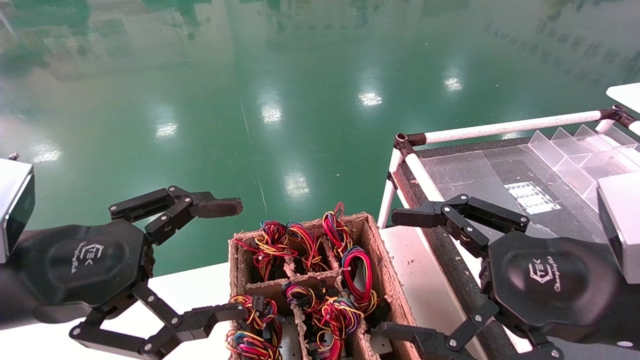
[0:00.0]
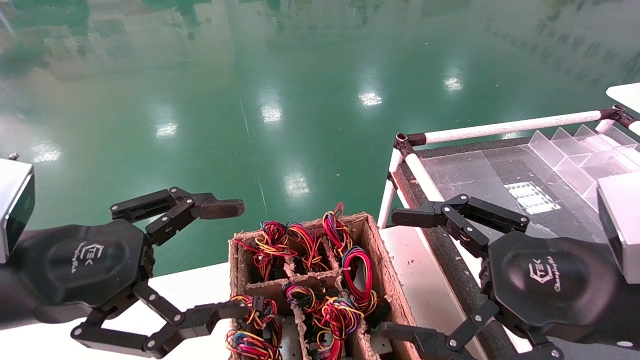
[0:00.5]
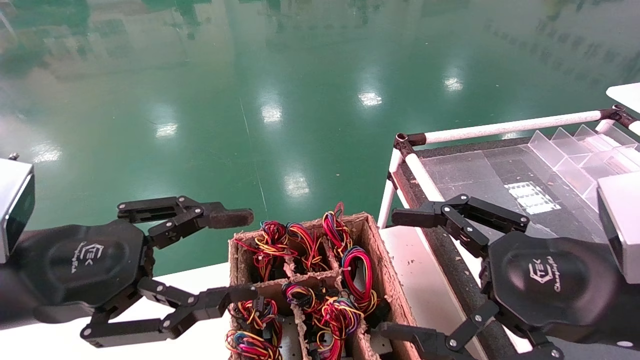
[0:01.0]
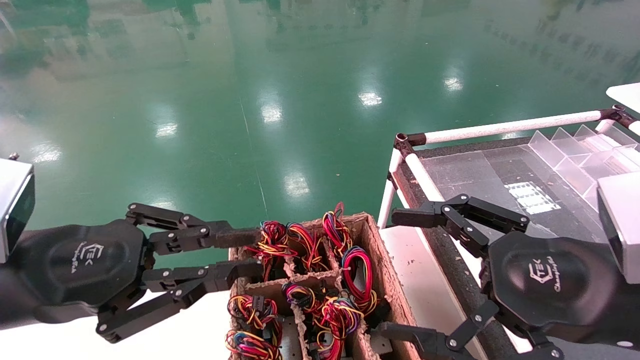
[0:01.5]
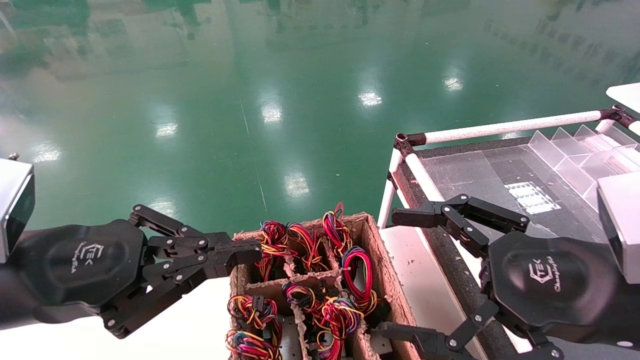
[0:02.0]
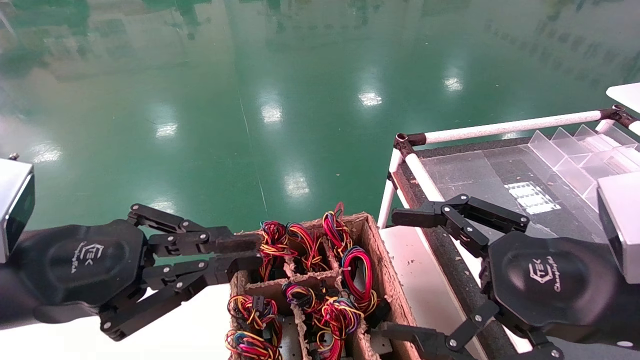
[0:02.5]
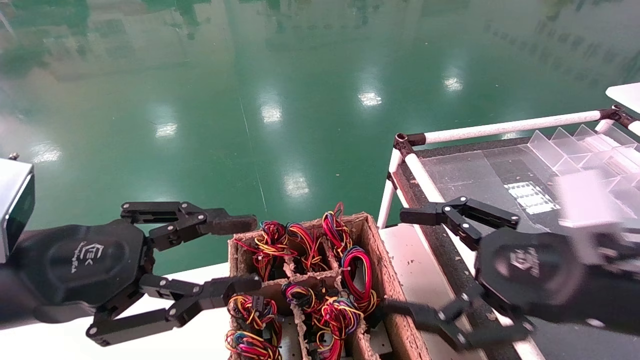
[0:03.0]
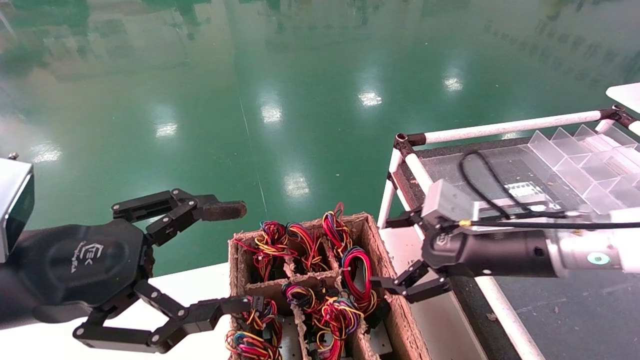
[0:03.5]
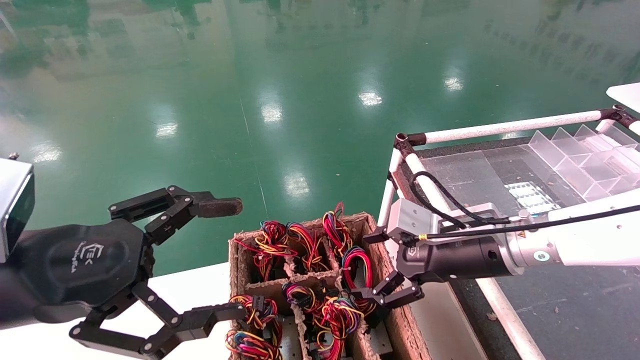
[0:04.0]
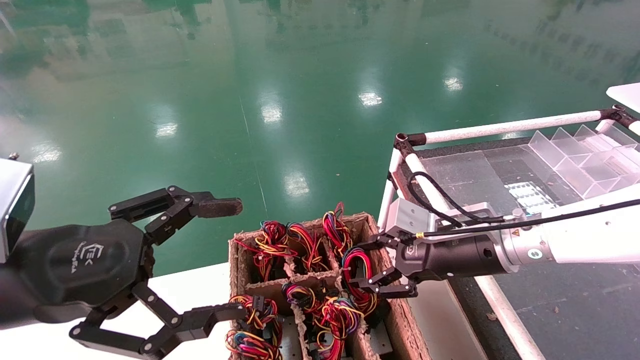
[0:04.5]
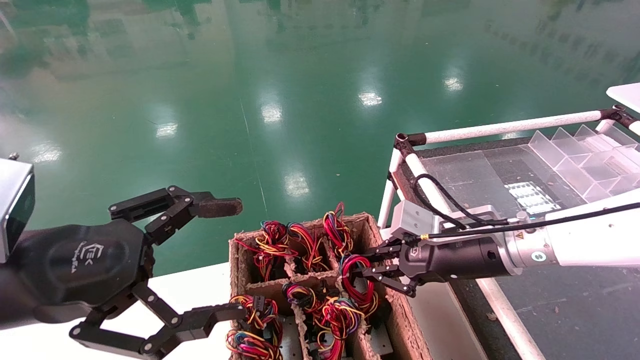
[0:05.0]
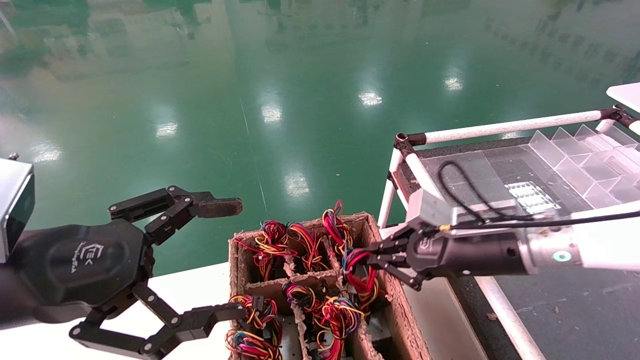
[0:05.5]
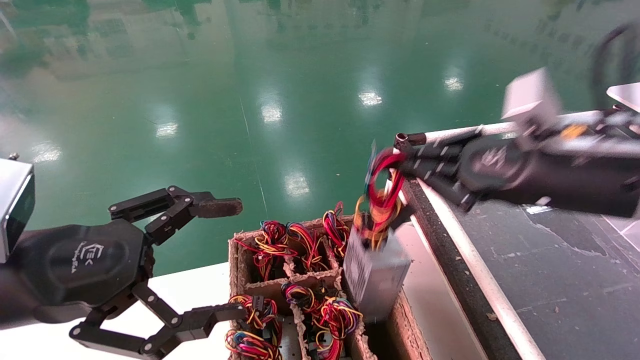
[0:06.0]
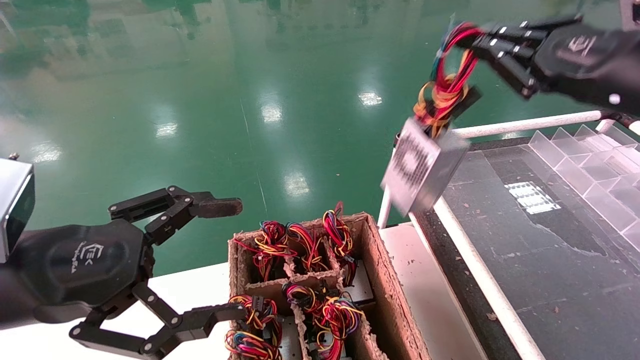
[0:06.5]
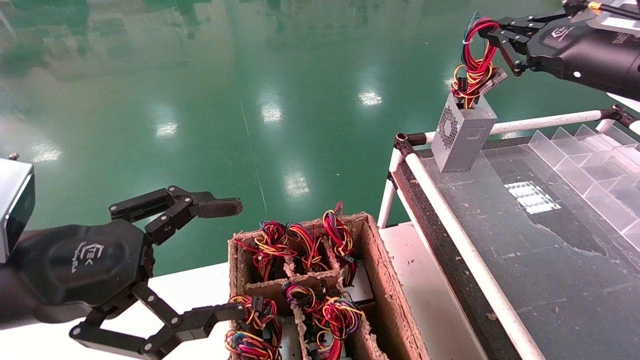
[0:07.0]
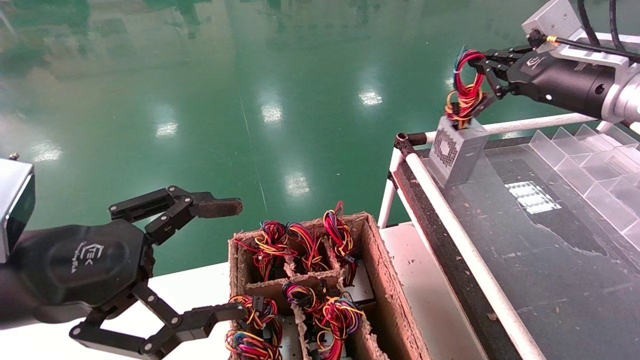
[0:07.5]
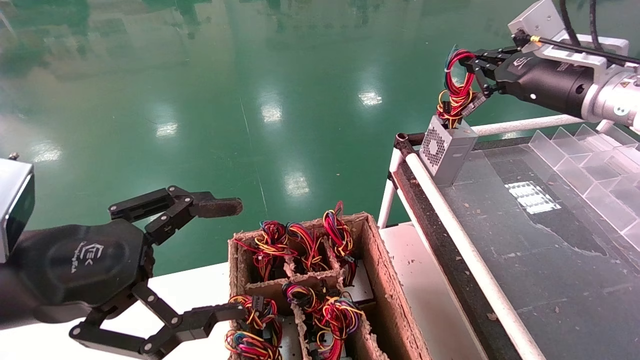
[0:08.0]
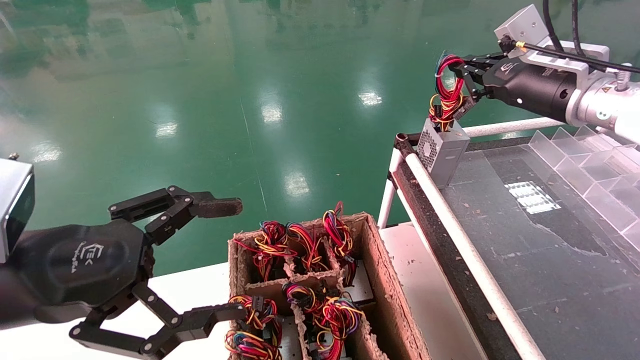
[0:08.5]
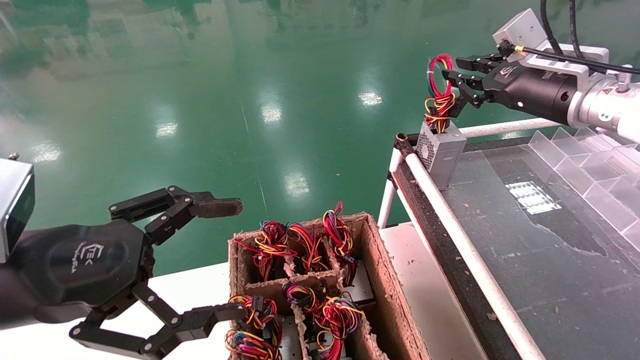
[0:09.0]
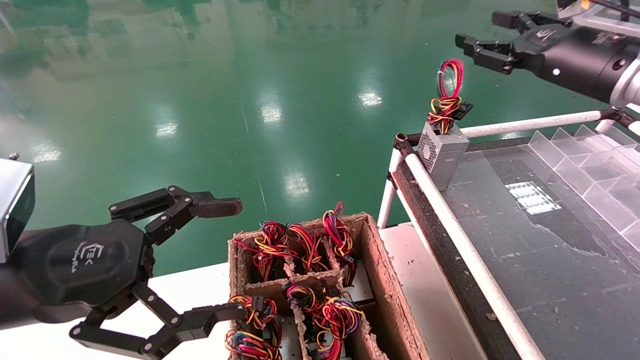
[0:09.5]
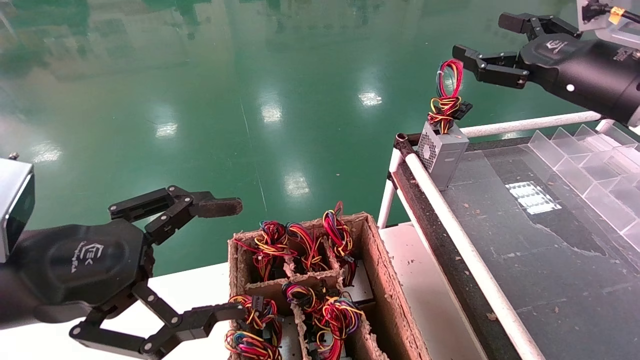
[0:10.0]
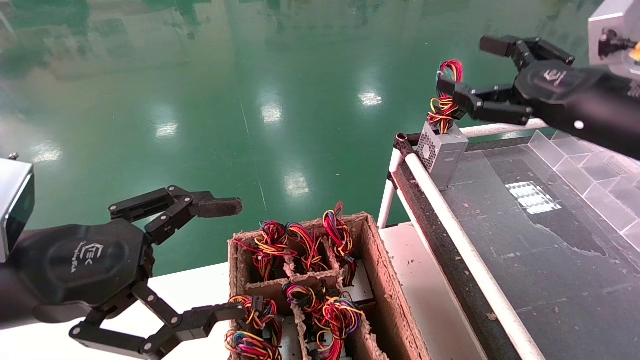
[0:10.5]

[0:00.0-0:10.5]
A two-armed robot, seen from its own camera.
Step, 0:01.0 to 0:05.0: Grab and lift the power supply from the large box.
Step, 0:05.5 to 0:09.5: Place the power supply on the operating table.
0:00.0 to 0:02.0: The left gripper closes its fingers.
0:02.0 to 0:04.0: The left gripper opens its fingers, while the right gripper goes about 15 cm forward.
0:04.0 to 0:06.5: The right gripper shifts roughly 20 cm upward and to the right, and closes.
0:06.5 to 0:08.5: The right gripper shifts approximately 10 cm forward.
0:08.5 to 0:10.5: The right gripper heads backward, covering about 10 cm, and opens.

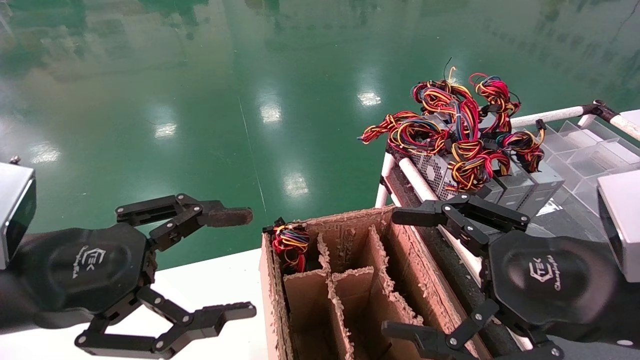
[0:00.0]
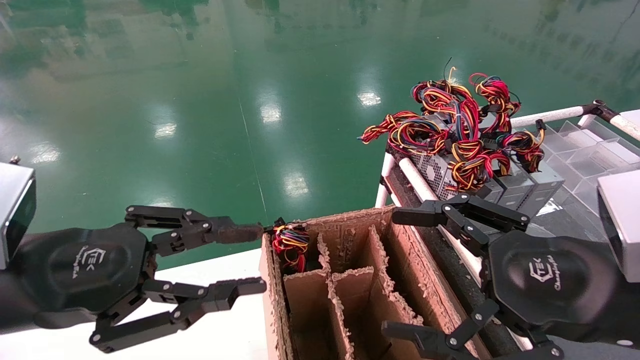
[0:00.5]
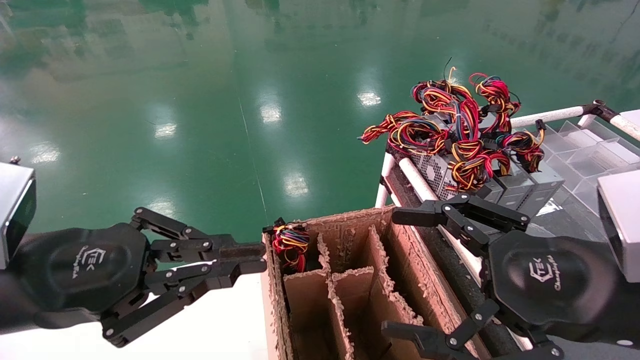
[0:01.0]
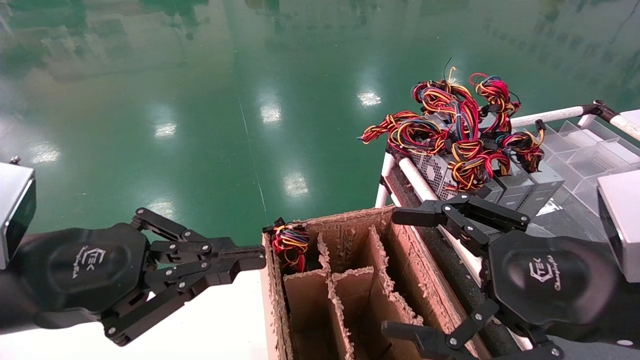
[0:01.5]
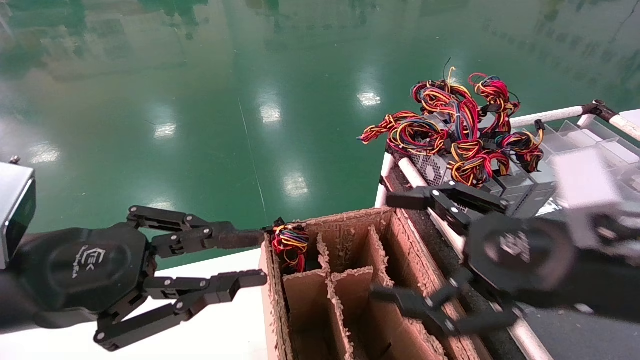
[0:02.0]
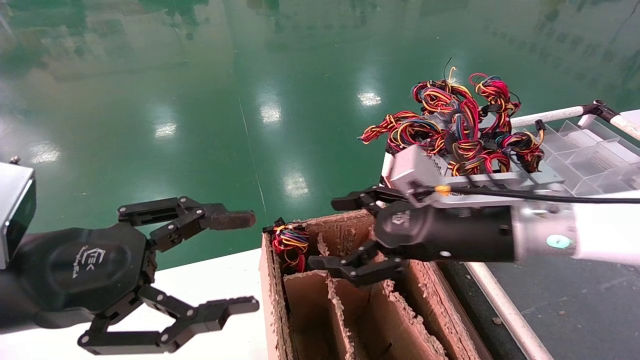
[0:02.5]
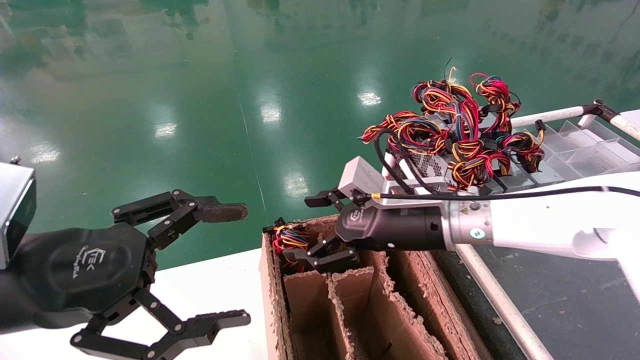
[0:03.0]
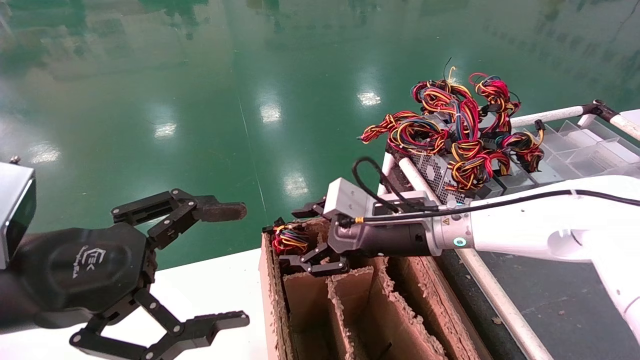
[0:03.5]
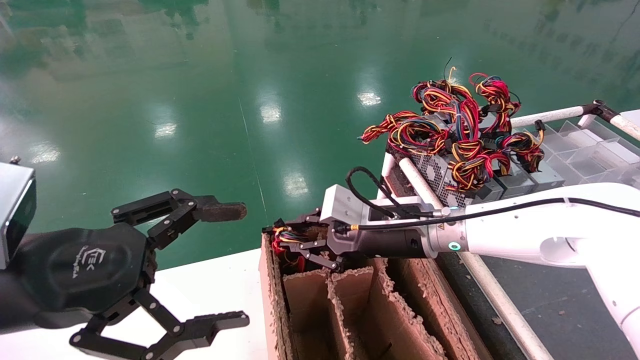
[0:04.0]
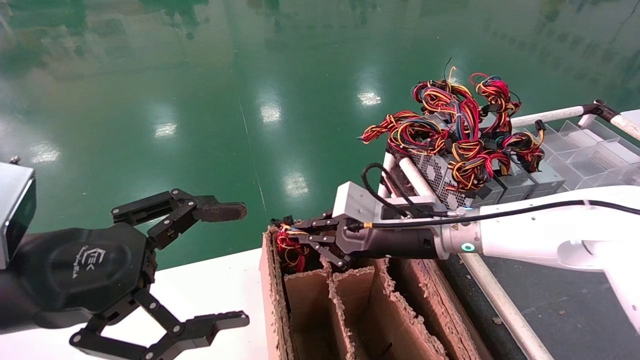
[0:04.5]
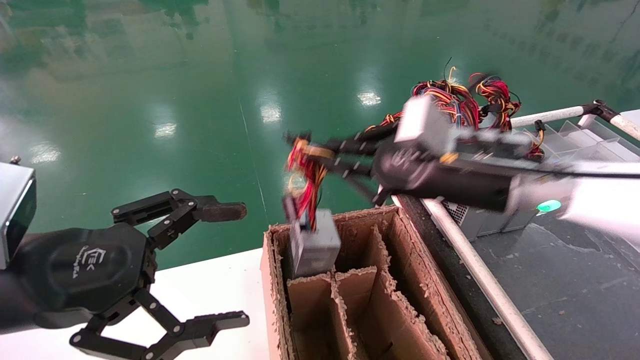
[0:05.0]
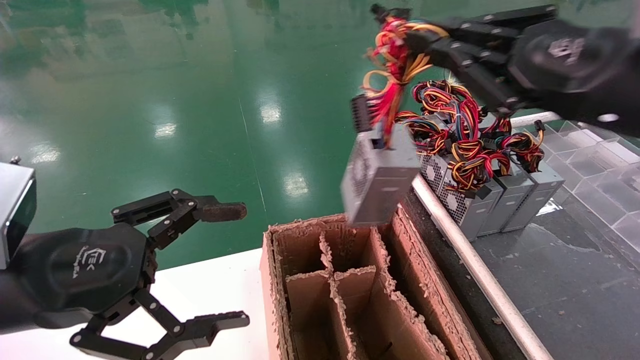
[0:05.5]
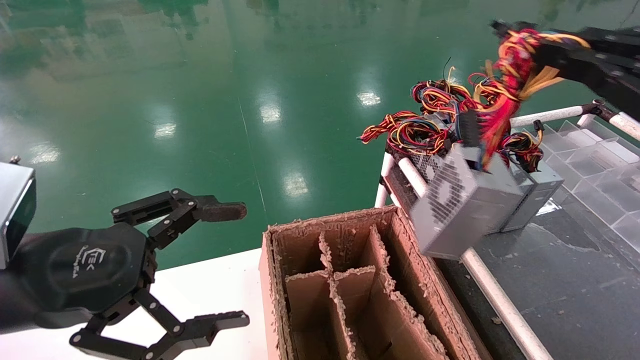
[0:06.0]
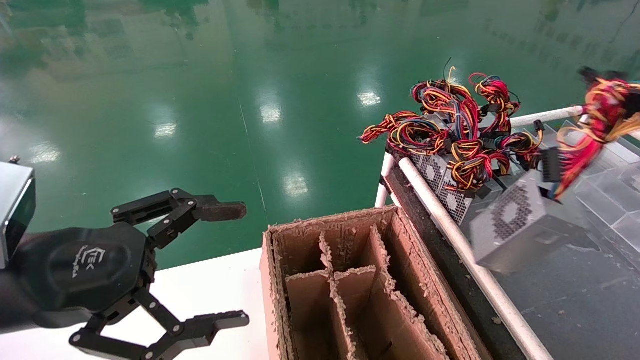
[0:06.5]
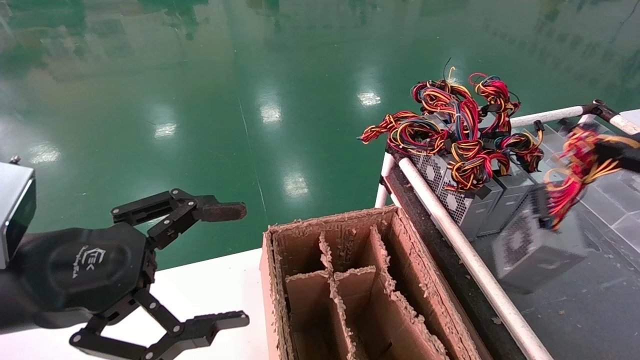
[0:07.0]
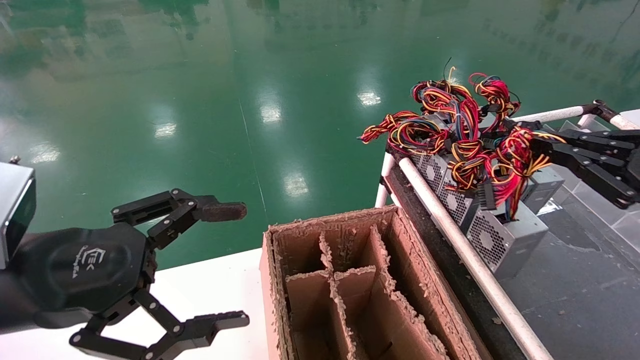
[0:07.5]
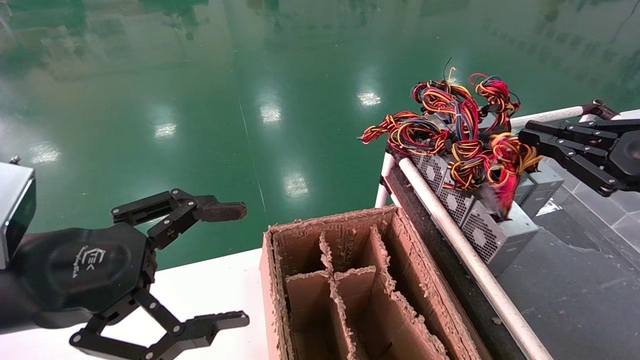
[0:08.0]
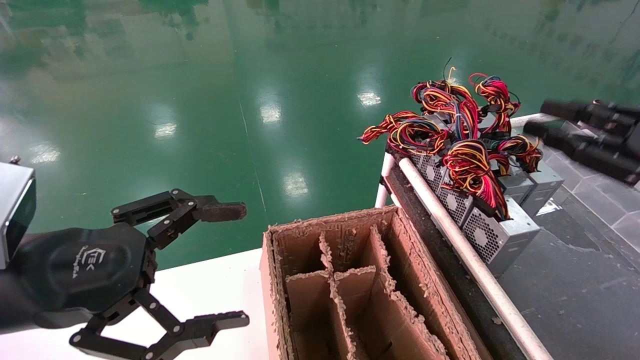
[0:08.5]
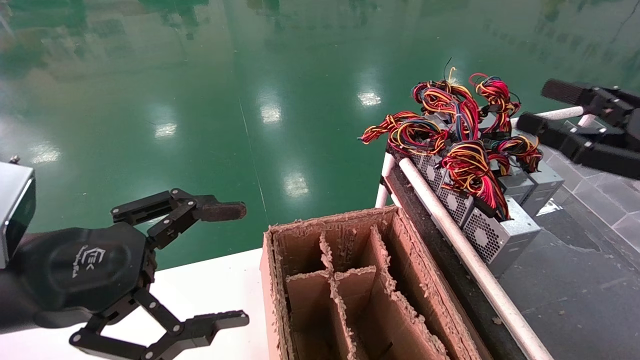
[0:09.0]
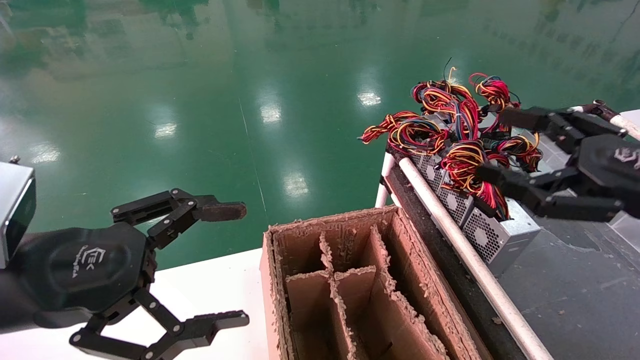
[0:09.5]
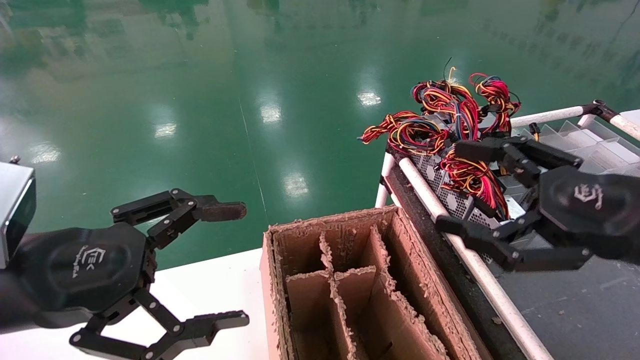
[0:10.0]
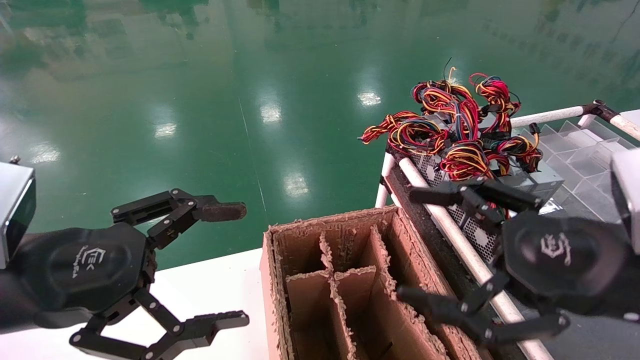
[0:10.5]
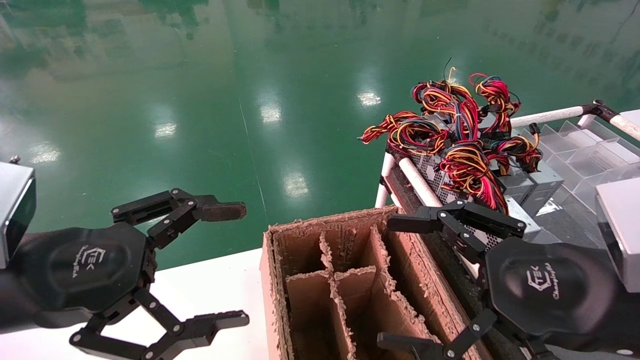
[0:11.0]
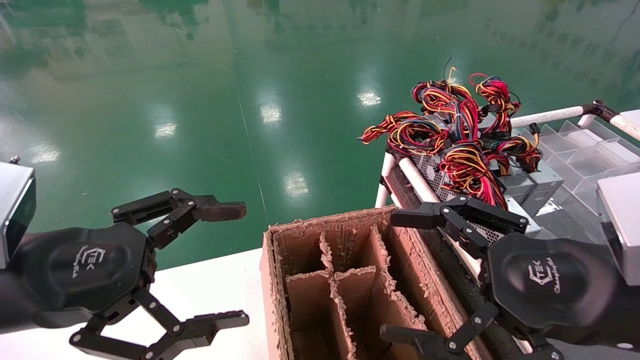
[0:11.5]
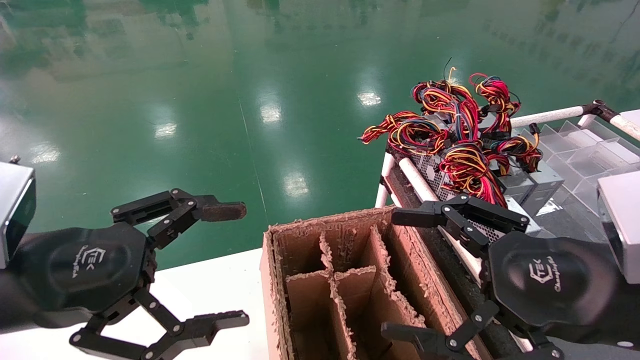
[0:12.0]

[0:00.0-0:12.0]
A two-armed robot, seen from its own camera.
Step, 0:01.5 to 0:04.0: Grab and lift the power supply from the large box.
Step, 0:04.5 to 0:08.0: Place the power supply on the operating table.
0:00.0 to 0:02.0: The left gripper closes its fingers.
0:02.0 to 0:04.0: The right gripper heads forward and to the left, covering approximately 20 cm, and closes up, while the left gripper opens its fingers.
0:04.0 to 0:06.0: The right gripper moves to the right, backward and upward, roughly 35 cm.
0:06.0 to 0:08.0: The right gripper moves downward and forward, some 10 cm.
0:08.0 to 0:10.0: The right gripper is displaced to the left by some 10 cm, and opens.
0:10.0 to 0:12.0: The right gripper is displaced to the left by approximately 5 cm.
